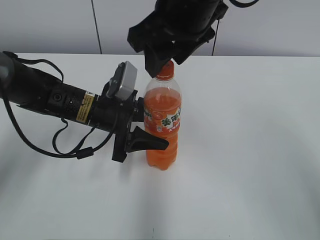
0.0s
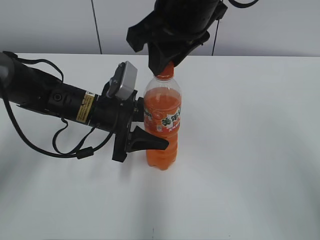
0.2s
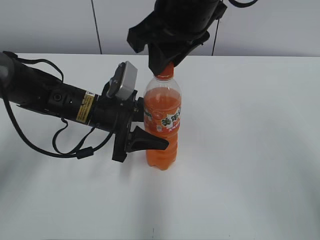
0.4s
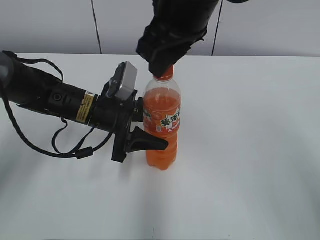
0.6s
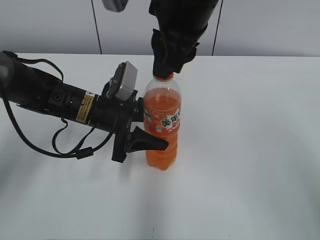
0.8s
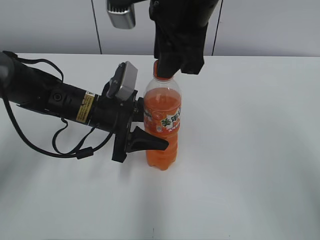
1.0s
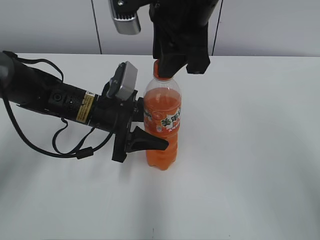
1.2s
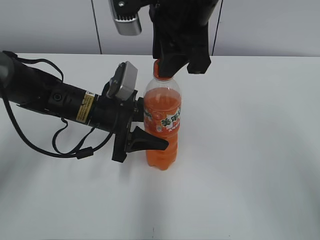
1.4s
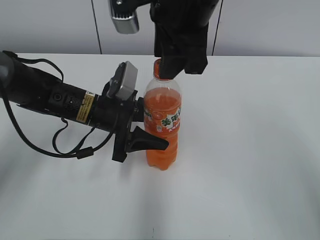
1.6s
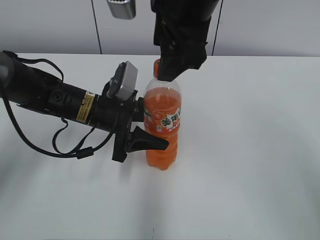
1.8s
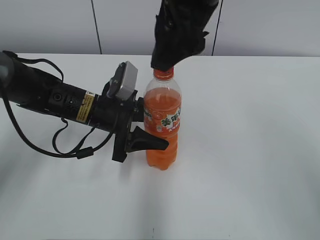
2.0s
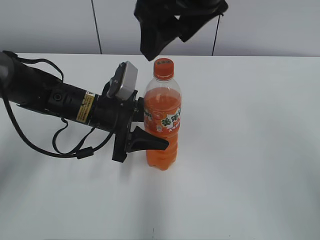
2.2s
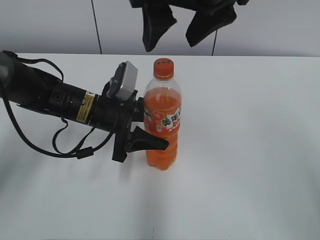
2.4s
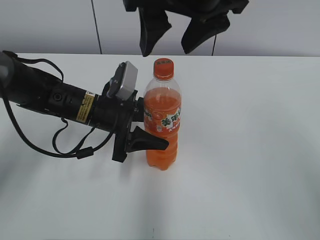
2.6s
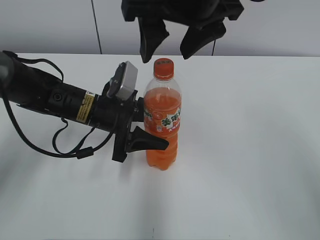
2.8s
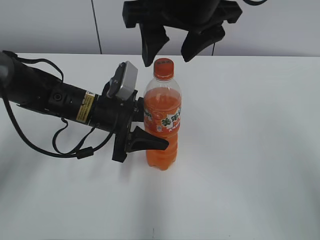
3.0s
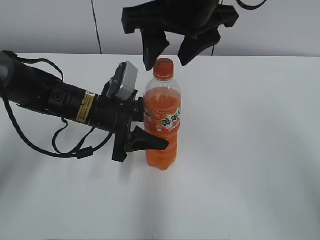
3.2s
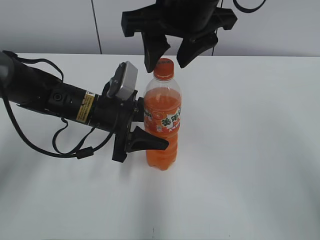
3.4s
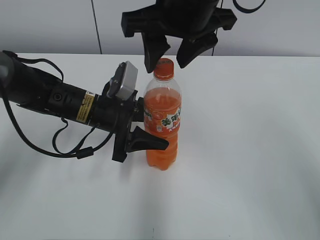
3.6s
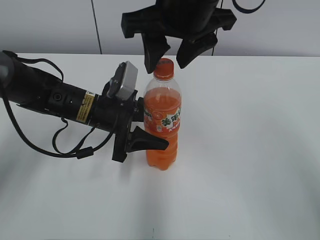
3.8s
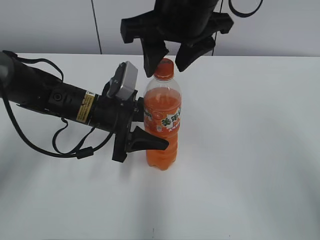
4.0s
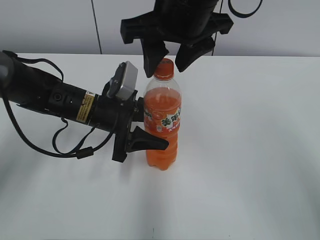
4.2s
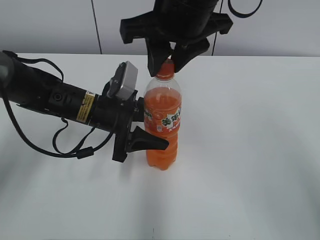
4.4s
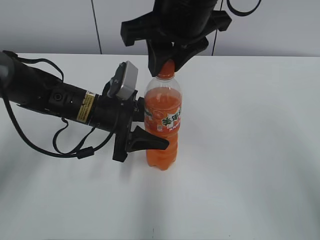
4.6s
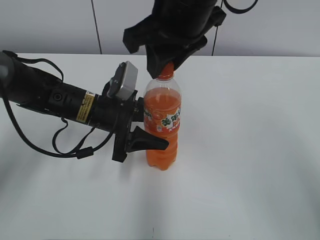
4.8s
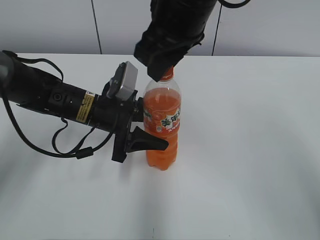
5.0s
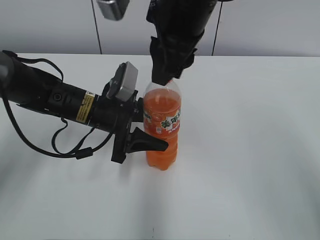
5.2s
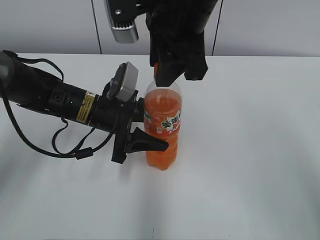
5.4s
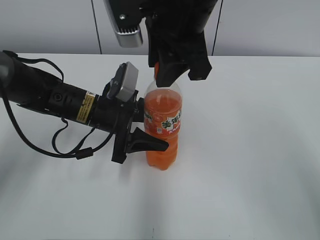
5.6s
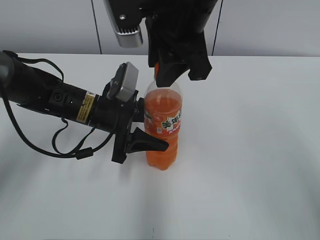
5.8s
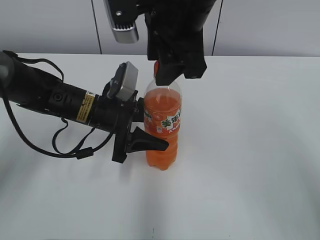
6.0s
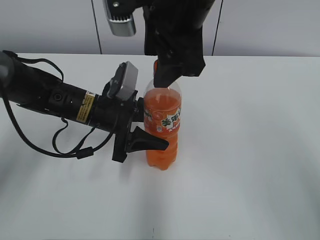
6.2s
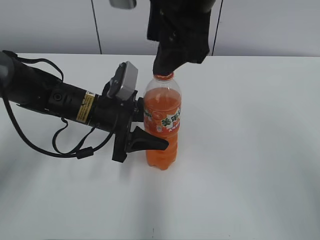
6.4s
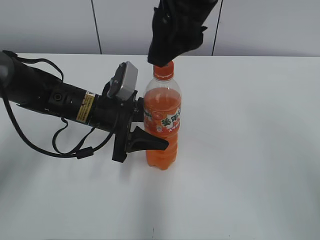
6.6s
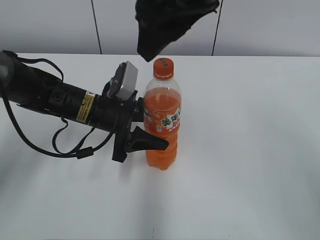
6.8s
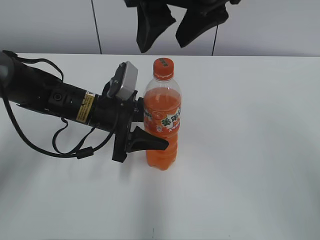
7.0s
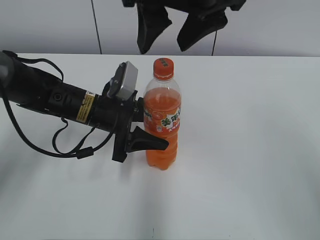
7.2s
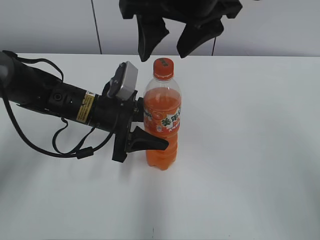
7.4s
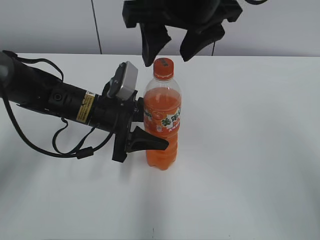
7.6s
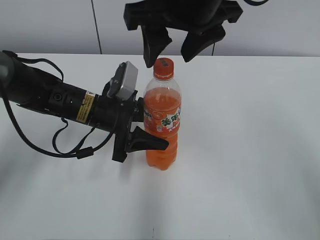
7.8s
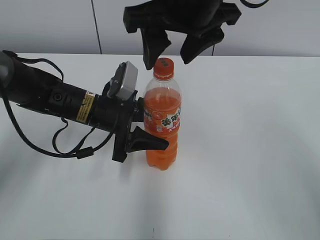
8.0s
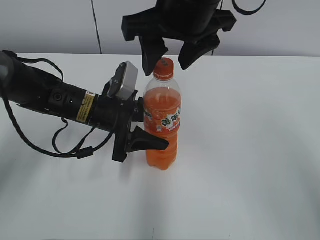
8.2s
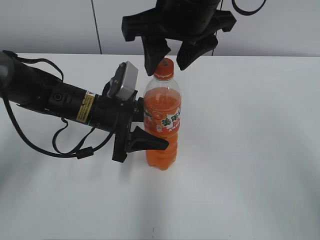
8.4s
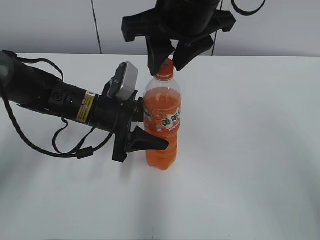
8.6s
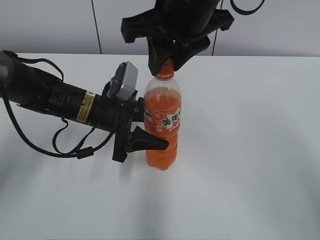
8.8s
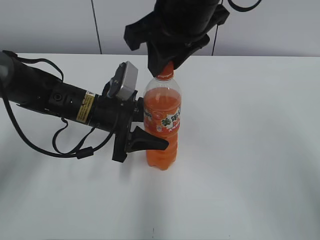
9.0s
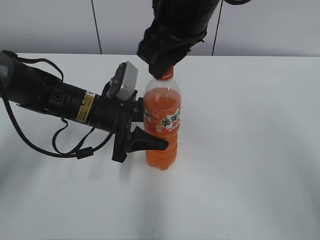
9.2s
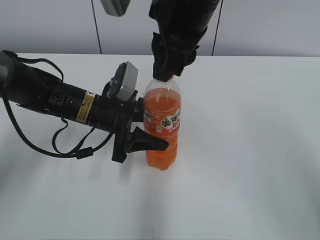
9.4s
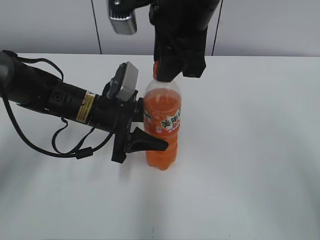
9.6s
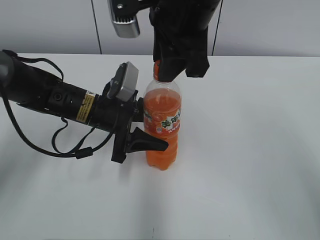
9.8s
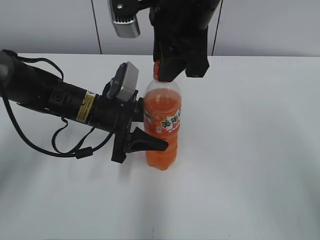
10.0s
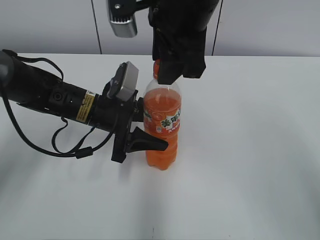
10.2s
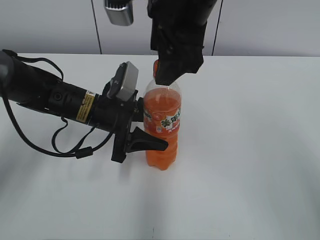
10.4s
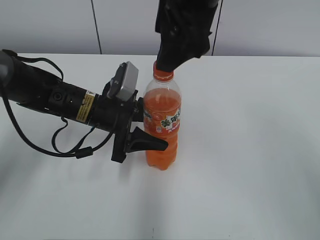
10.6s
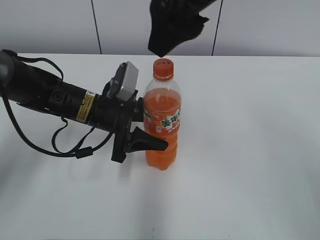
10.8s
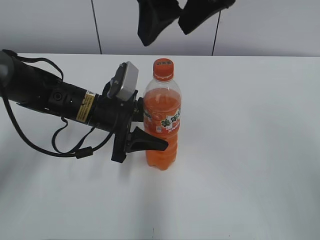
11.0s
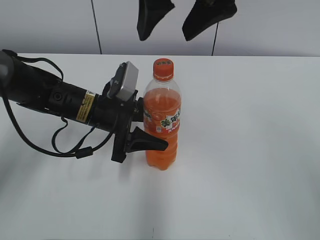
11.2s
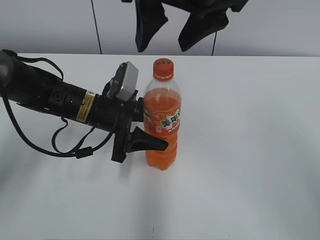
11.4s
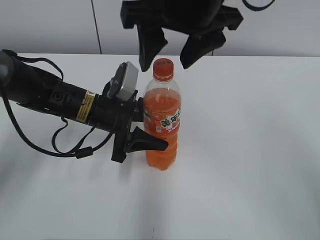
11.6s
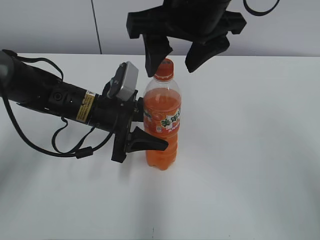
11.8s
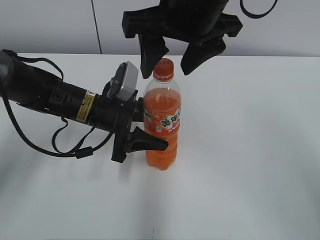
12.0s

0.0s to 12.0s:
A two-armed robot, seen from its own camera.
1.6s to 3.0s: The right gripper opens.
3.0s to 4.4s: The right gripper closes up.
6.0s to 7.6s: The right gripper opens.
7.6s to 9.0s: The right gripper closes up.
9.0s to 10.4s: The right gripper opens.

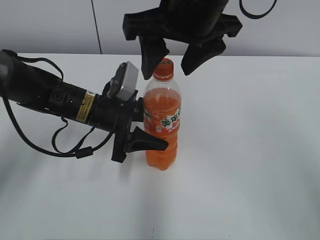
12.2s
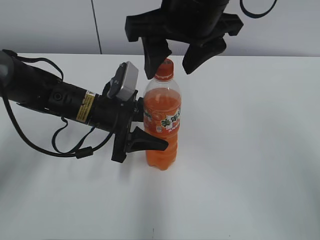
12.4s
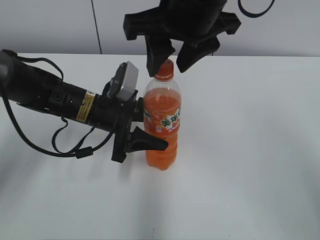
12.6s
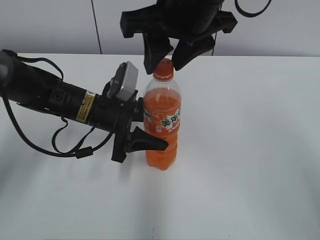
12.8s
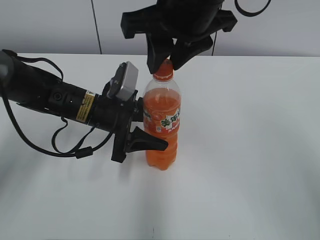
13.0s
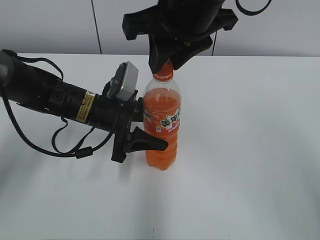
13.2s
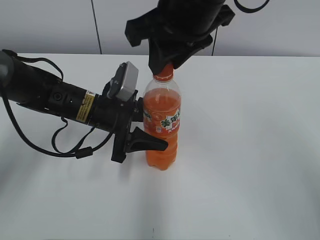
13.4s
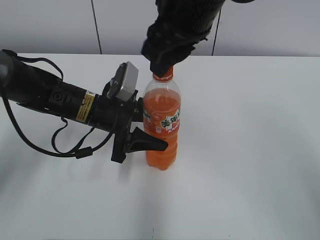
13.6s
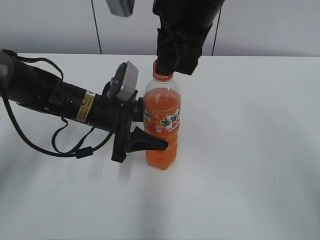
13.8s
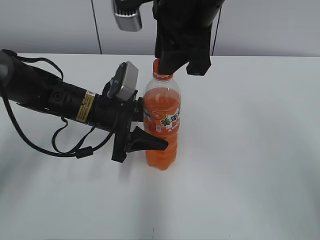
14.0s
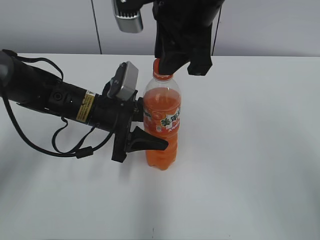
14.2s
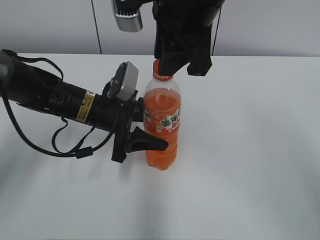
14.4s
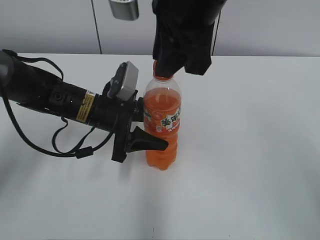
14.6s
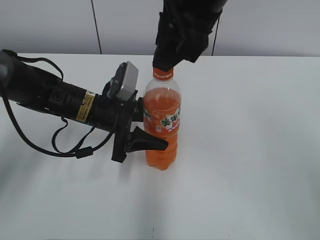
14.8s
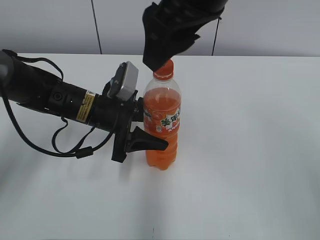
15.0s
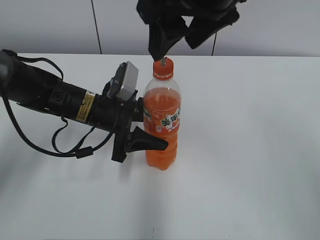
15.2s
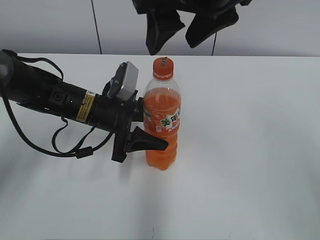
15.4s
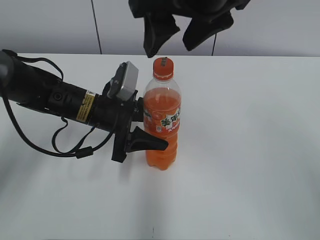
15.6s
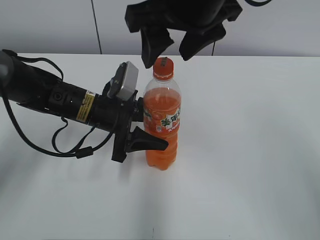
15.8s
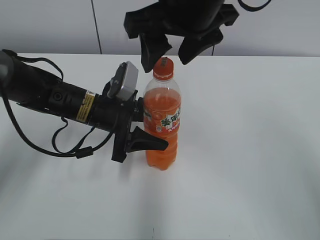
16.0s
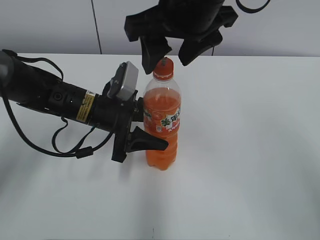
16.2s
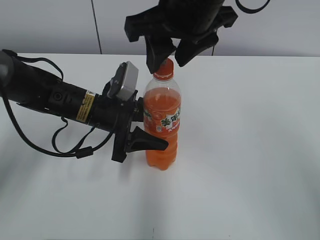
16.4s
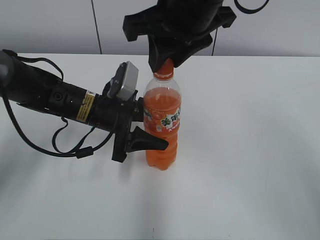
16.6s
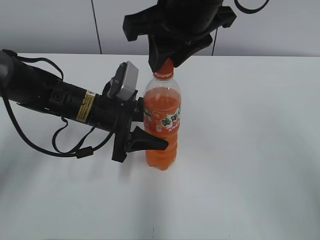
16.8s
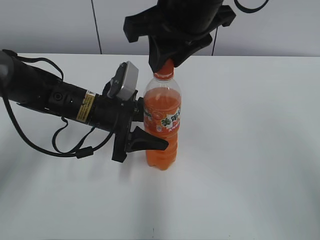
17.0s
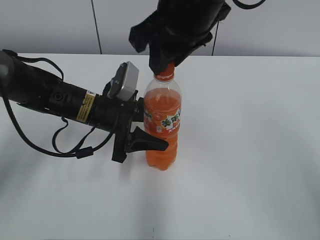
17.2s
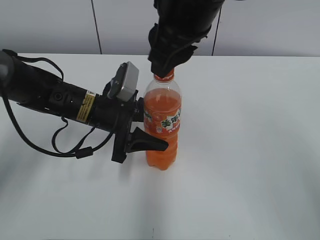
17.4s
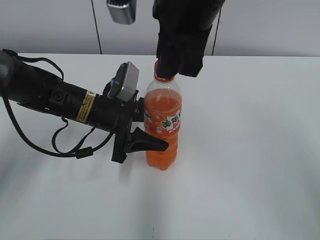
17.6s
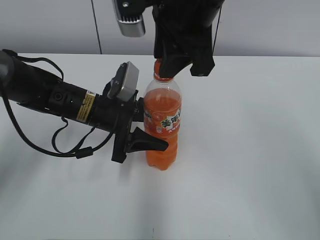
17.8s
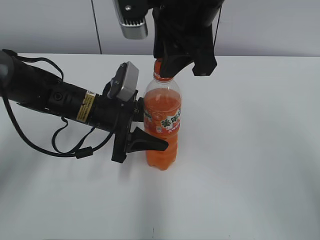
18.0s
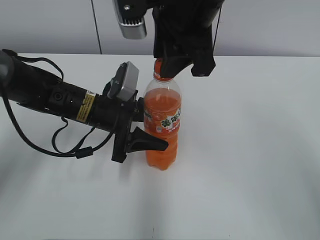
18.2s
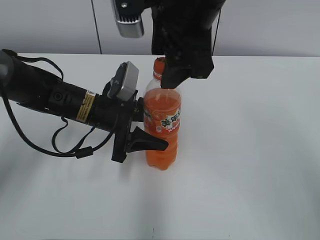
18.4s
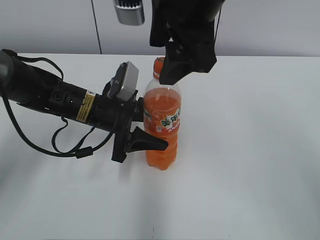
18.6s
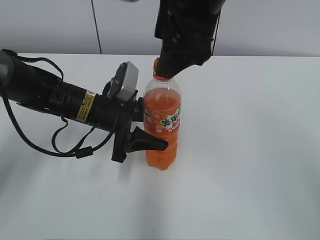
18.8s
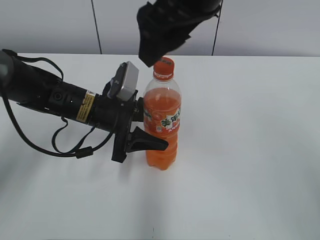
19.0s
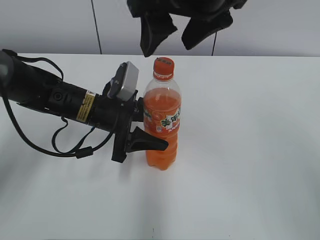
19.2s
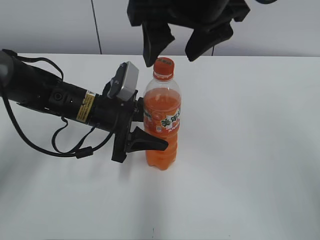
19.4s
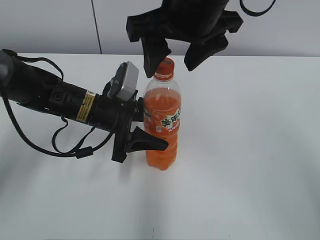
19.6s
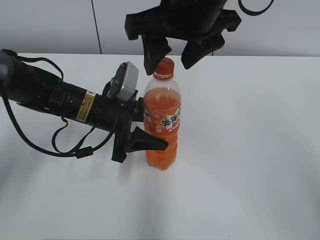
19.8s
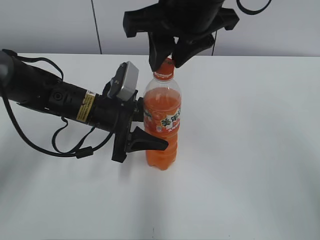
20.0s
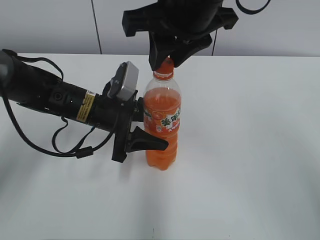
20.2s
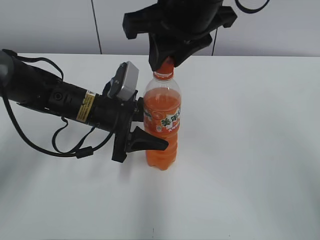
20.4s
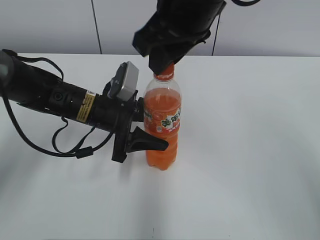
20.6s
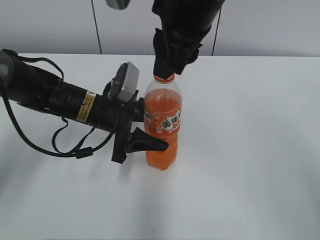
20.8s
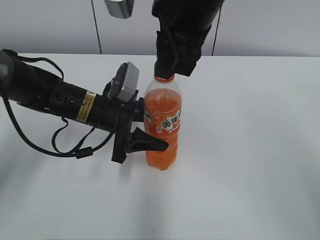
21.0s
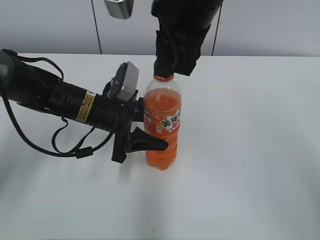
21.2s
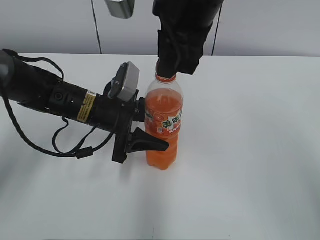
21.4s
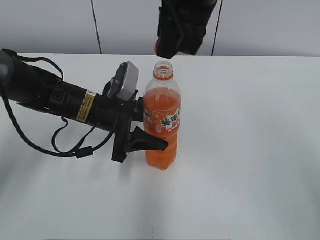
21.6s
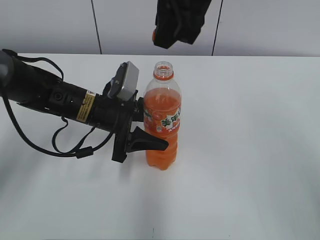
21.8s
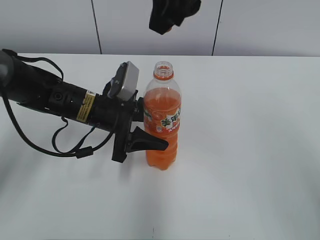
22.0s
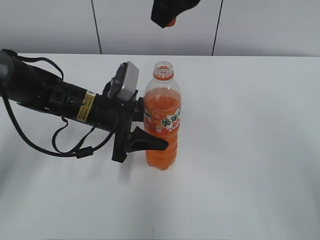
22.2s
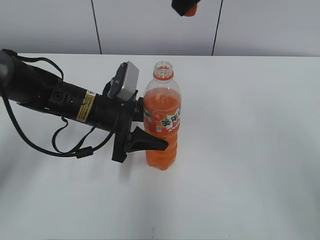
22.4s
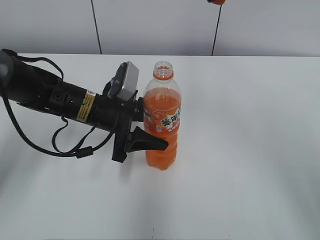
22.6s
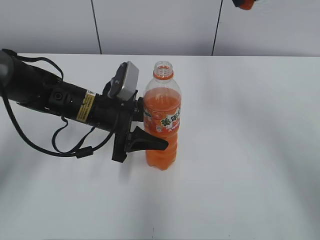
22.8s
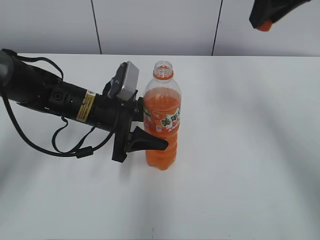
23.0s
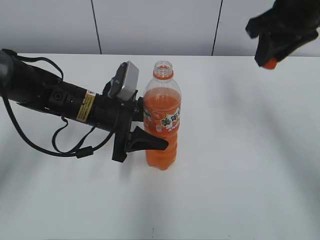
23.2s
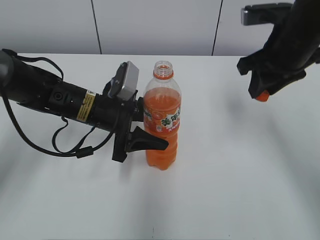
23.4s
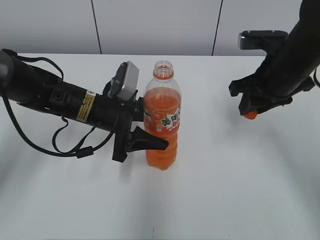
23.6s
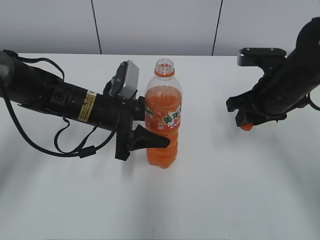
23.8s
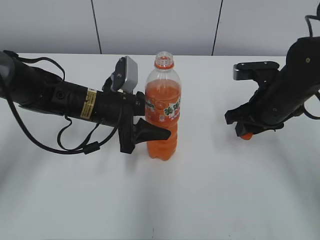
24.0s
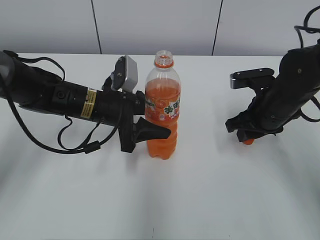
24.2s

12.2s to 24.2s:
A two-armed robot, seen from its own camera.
12.2s to 13.8s: The right gripper closes.
13.8s to 15.2s: The right gripper opens.
15.2s to 16.6s: The right gripper closes its fingers.
18.2s to 19.8s: The right gripper opens.
19.8s to 21.2s: The right gripper closes.
21.2s to 22.6s: The right gripper shifts approximately 10 cm to the right and upward.
22.6s to 24.2s: The right gripper is displaced downward by about 25 cm.
